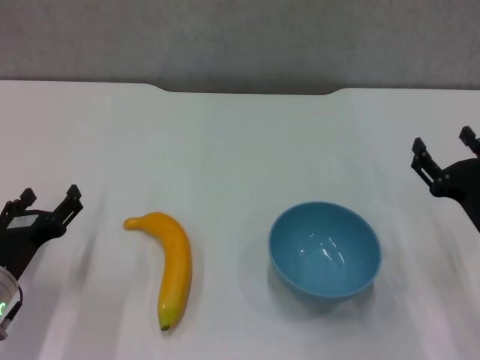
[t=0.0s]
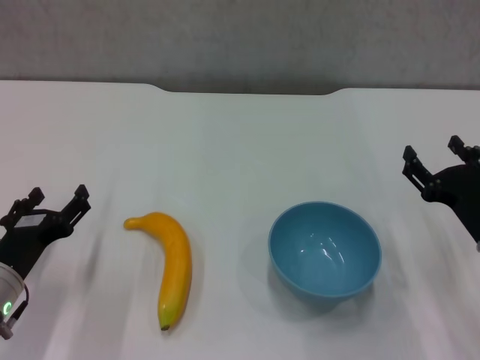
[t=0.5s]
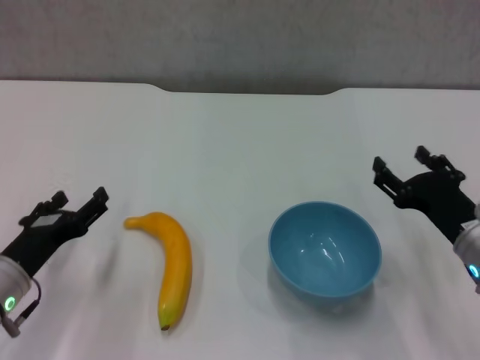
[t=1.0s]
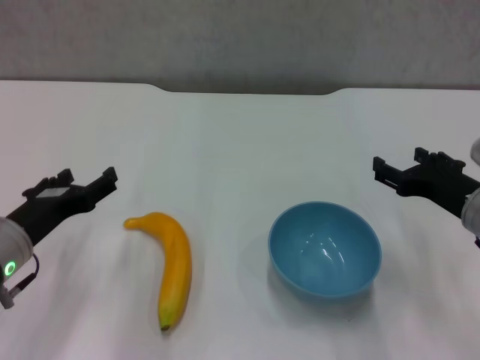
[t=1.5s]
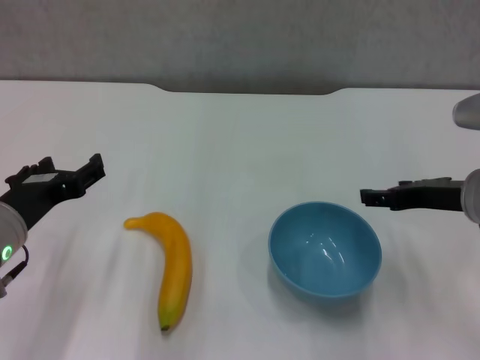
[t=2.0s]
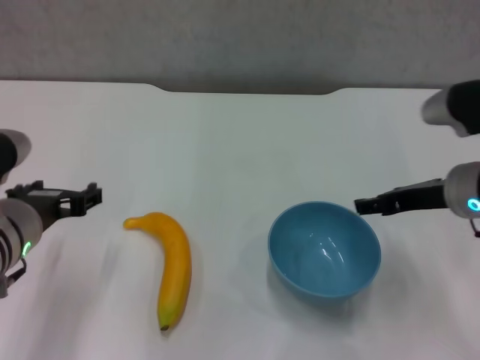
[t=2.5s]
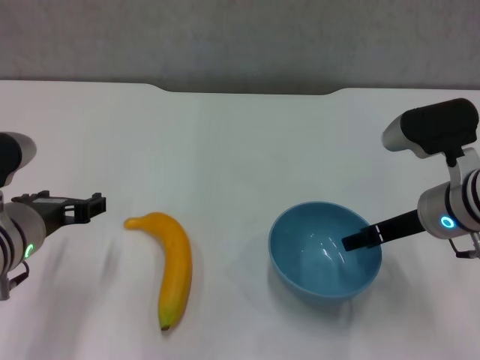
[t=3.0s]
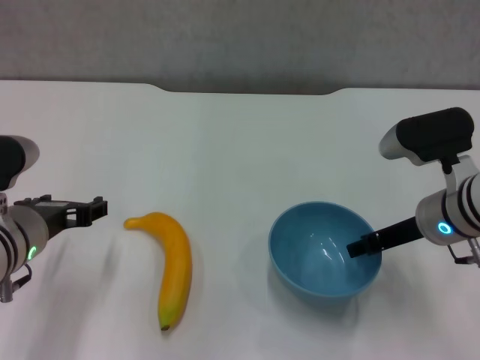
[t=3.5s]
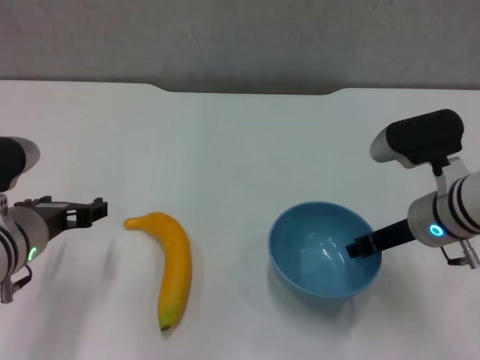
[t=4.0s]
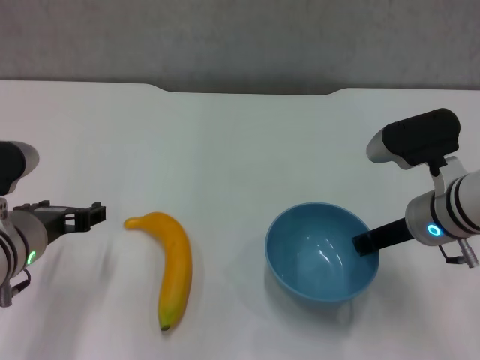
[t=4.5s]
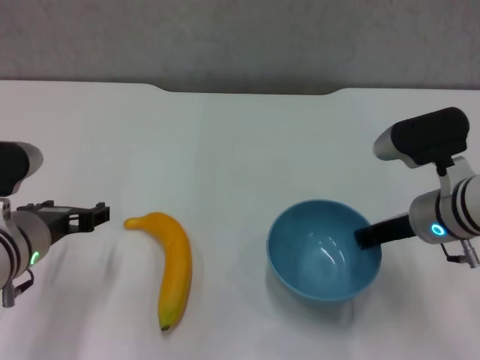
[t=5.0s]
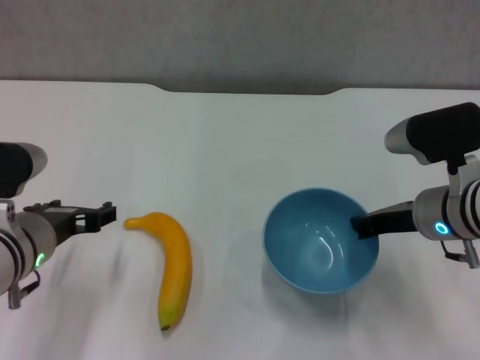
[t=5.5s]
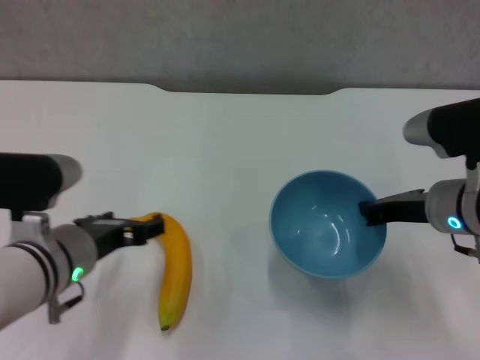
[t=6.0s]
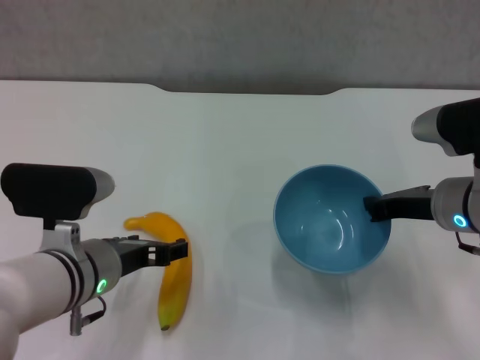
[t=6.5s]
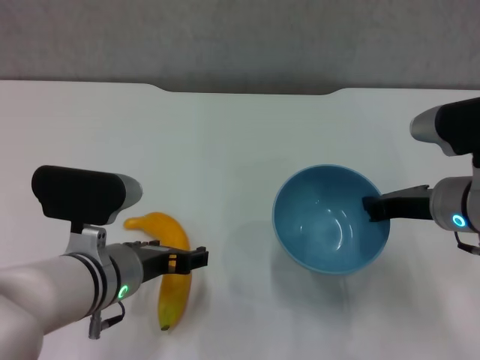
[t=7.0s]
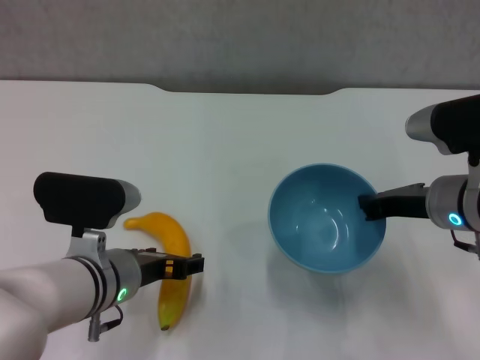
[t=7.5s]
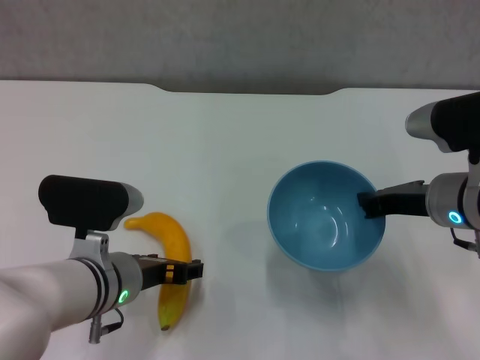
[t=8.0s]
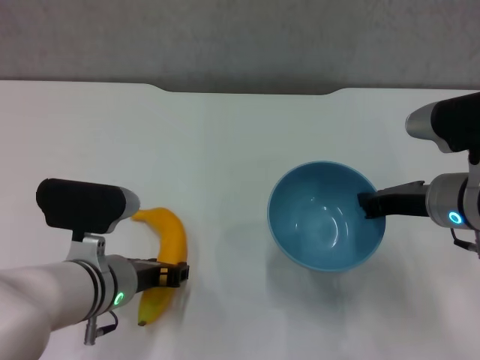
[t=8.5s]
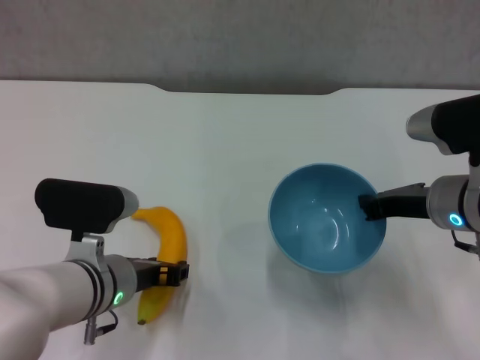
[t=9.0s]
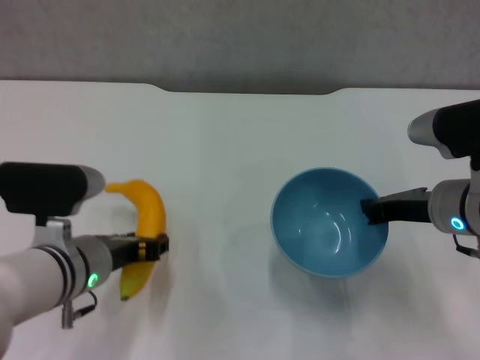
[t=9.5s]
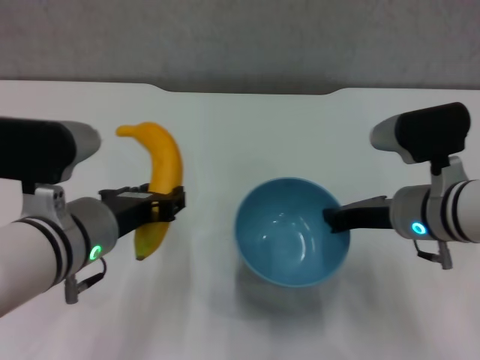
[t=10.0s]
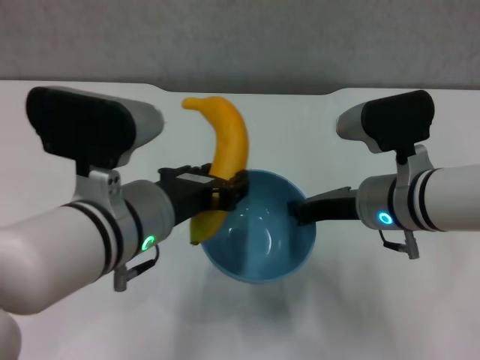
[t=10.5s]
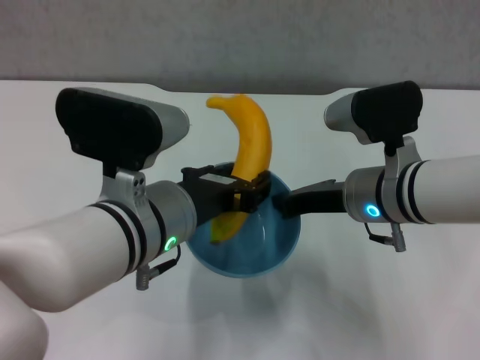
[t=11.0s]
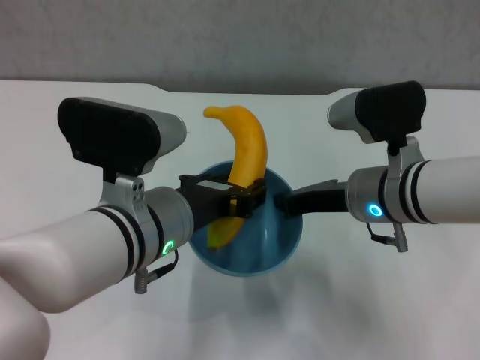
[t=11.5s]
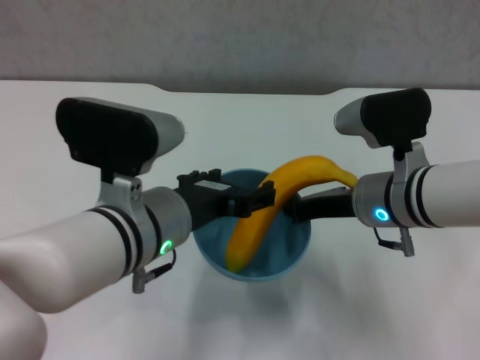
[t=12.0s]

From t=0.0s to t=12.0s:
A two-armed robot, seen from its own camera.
Step, from t=0.0s to t=4.5s: Grasp the blue bowl with right gripper.
Step, from t=5.0s to t=6.0s: Lift the blue bowl with right gripper.
Step, from t=6.5s to t=8.5s: Grasp the banana with left gripper.
Step, from t=9.0s to t=11.5s: Place the banana in the blue bowl with left gripper.
From t=0.0s to t=2.0s: Both grippers move upward, some 10 cm.
From t=2.0s to t=4.0s: The right gripper moves roughly 5 cm.
From t=4.0s to t=6.0s: The right gripper closes up.
From t=6.0s to t=8.0s: There are only small adjustments of the grippers.
From t=8.0s to t=10.0s: The left gripper moves upward, about 5 cm, and closes up.
From t=10.0s to t=12.0s: The left gripper moves to the right, roughly 5 cm, and opens its fingers.

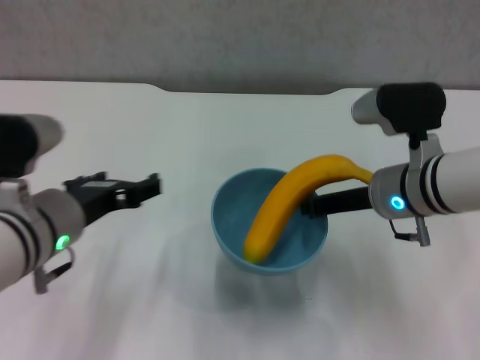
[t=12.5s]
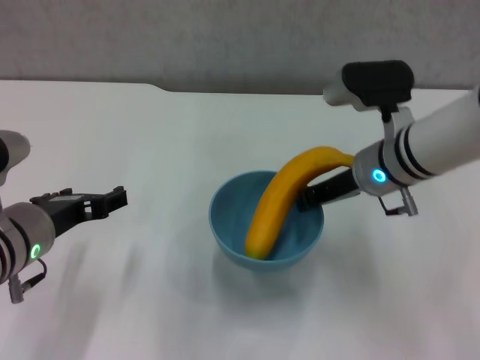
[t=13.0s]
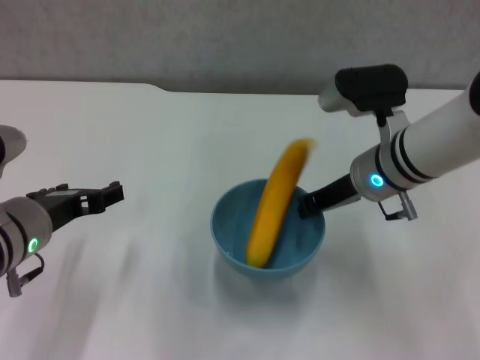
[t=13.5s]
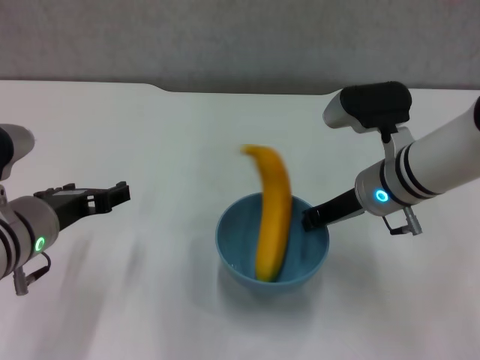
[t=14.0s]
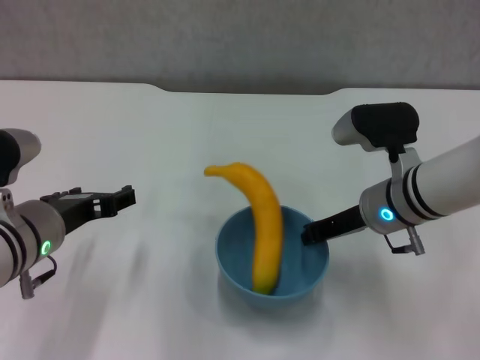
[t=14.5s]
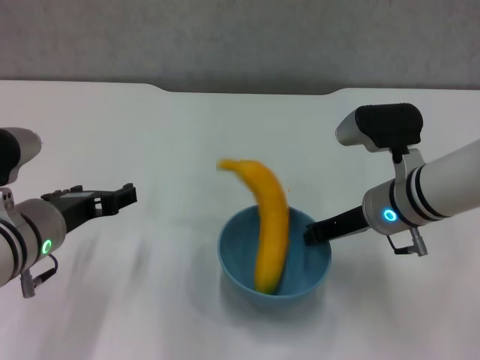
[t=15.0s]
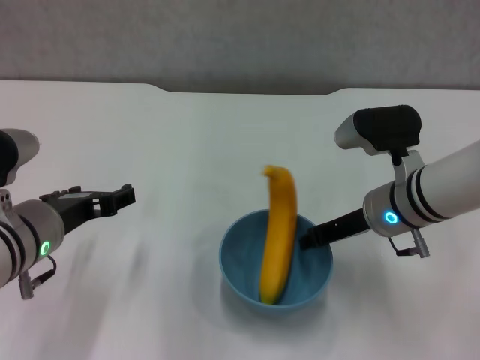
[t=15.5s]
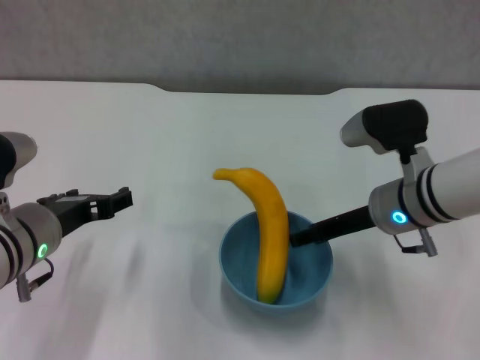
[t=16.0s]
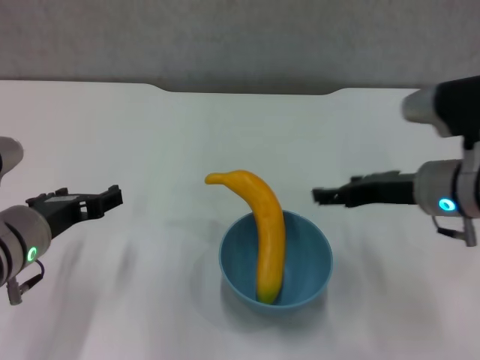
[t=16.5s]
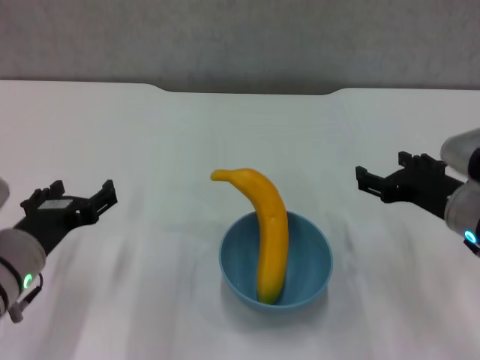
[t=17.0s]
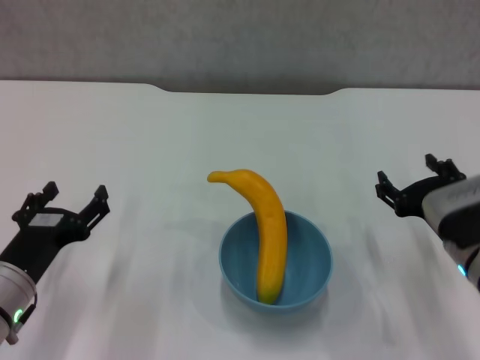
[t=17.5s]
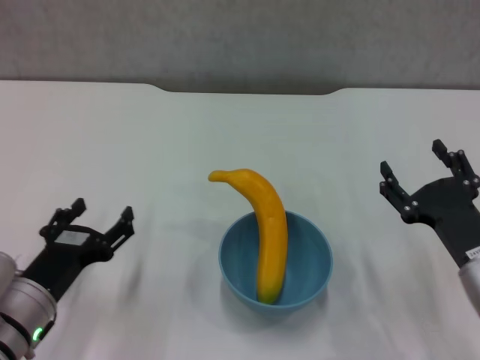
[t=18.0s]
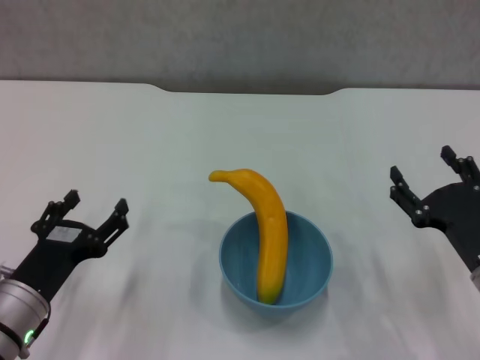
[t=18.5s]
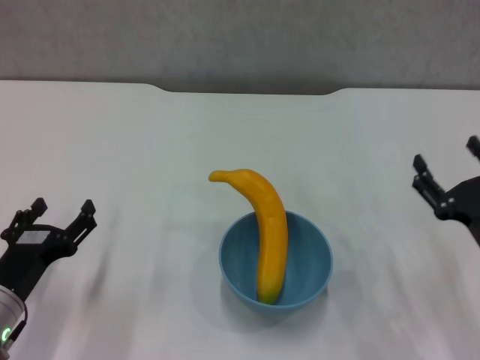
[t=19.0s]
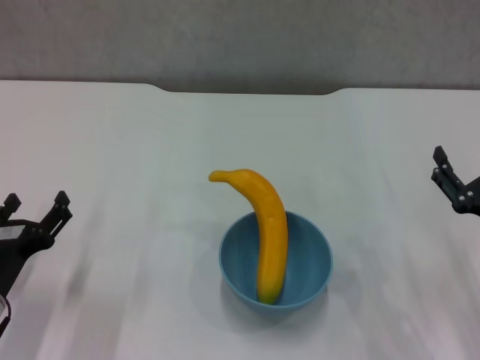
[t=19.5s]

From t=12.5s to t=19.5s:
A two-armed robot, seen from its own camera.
Step, from t=12.5s to t=16.0s: Place the bowl on the table with right gripper.
From t=14.5s to t=16.0s: The right gripper opens its fingers.
From t=16.0s to t=17.5s: The right gripper travels backward and to the right by about 10 cm, while the left gripper travels downward by about 10 cm.
From t=17.5s to t=19.5s: The right gripper shifts roughly 5 cm to the right.
